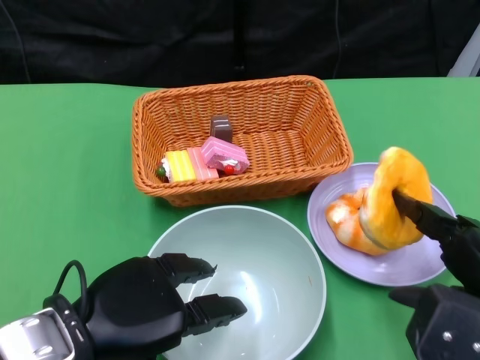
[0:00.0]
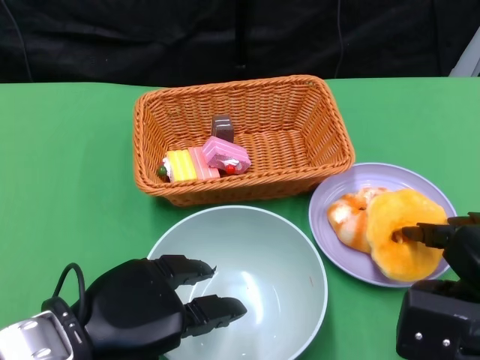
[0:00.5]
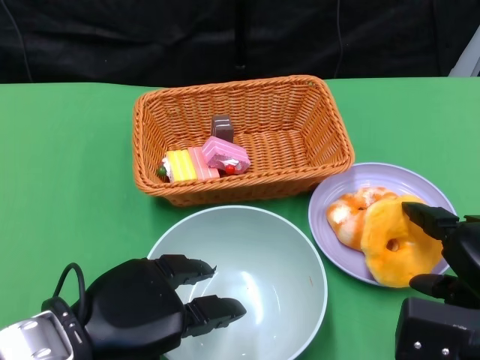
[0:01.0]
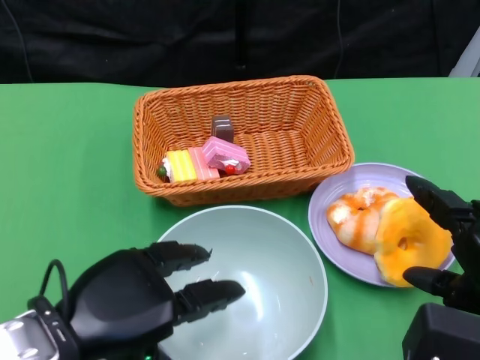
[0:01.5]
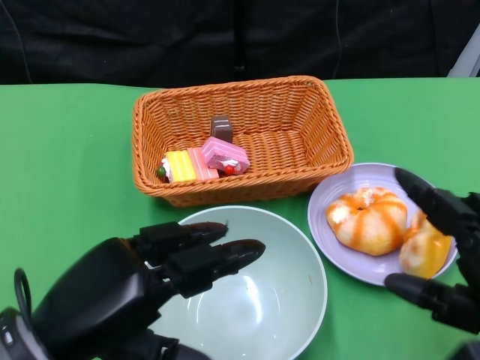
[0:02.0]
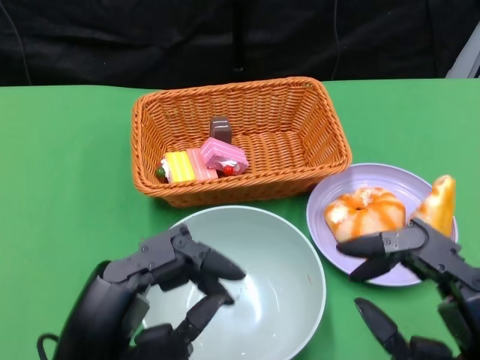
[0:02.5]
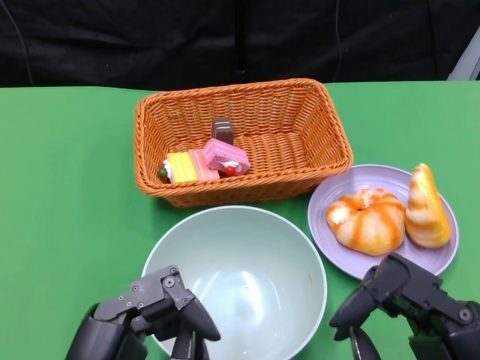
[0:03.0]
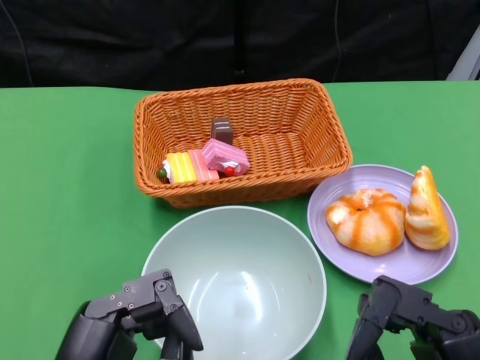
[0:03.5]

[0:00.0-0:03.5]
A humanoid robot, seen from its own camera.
0:02.0 to 0:03.5: The right hand moves approximately 5 cm. Meanwhile the left hand is displaced backward by about 5 cm.
